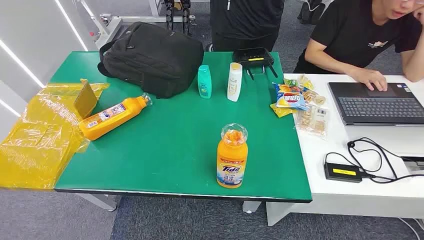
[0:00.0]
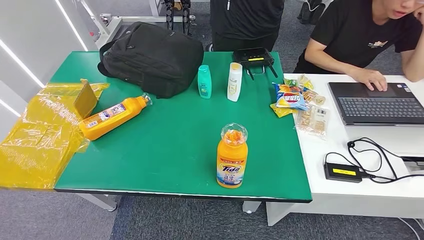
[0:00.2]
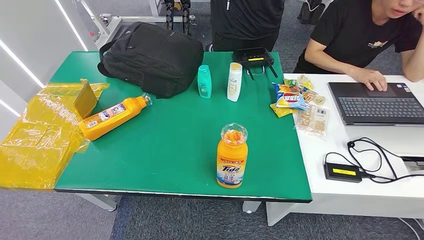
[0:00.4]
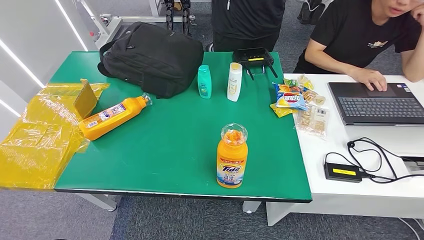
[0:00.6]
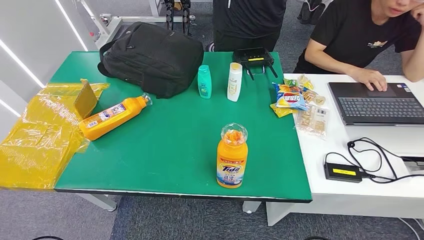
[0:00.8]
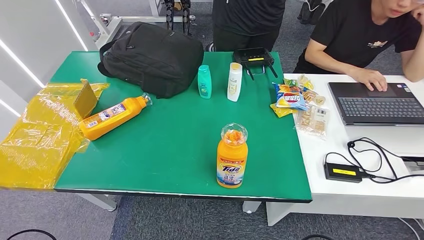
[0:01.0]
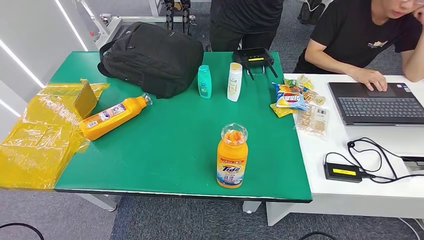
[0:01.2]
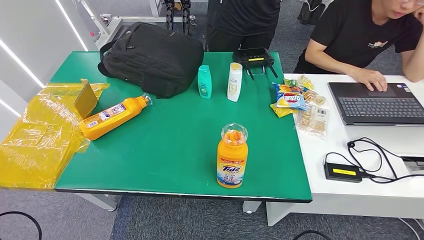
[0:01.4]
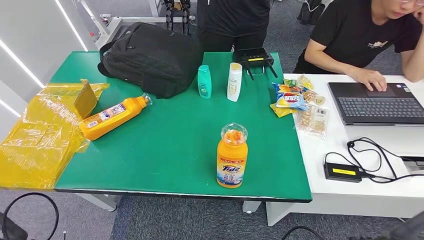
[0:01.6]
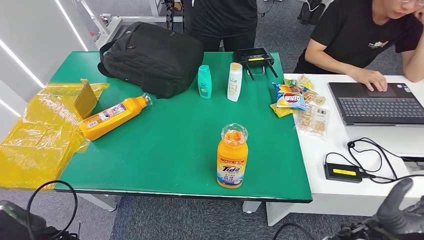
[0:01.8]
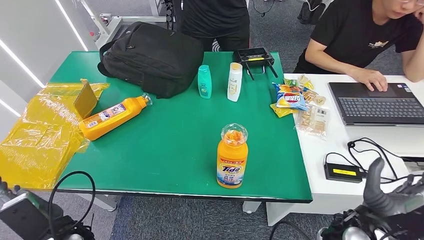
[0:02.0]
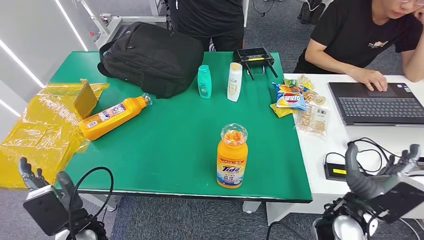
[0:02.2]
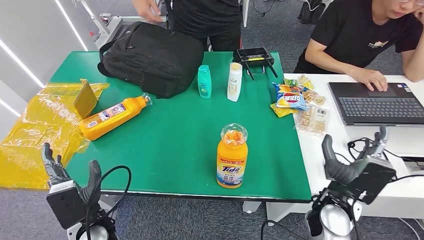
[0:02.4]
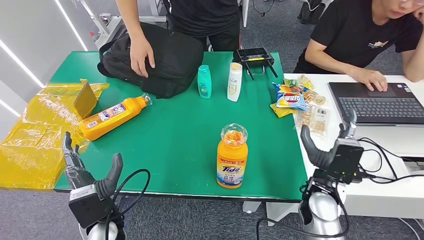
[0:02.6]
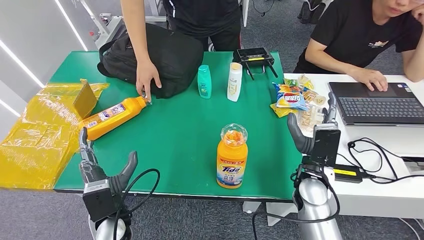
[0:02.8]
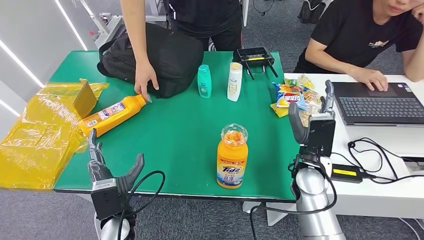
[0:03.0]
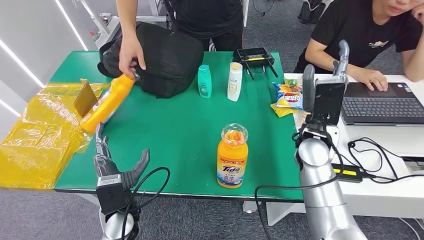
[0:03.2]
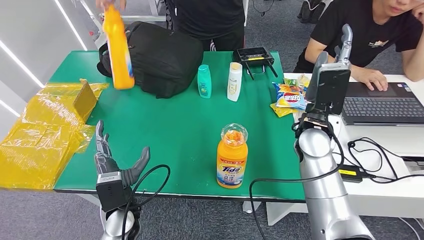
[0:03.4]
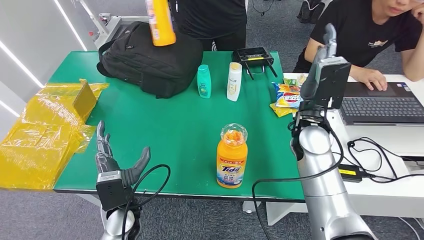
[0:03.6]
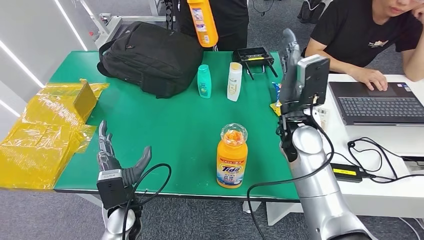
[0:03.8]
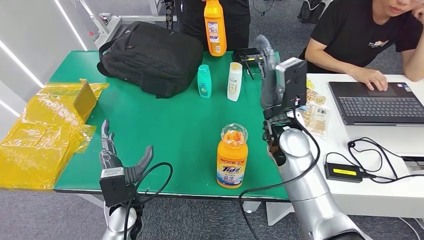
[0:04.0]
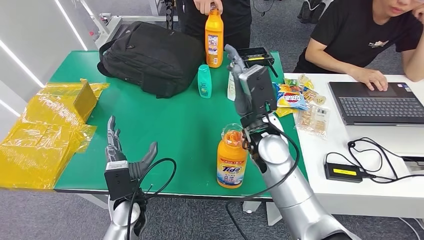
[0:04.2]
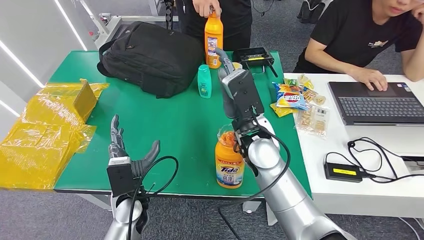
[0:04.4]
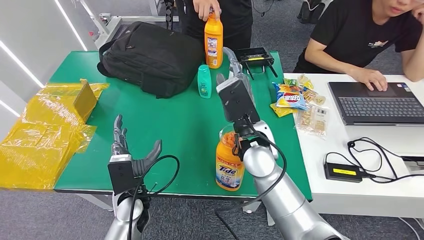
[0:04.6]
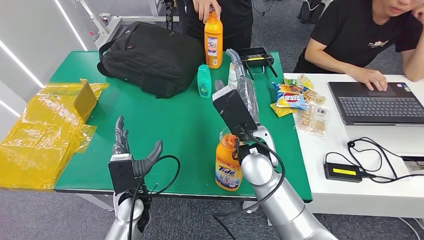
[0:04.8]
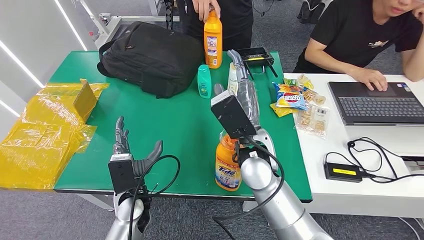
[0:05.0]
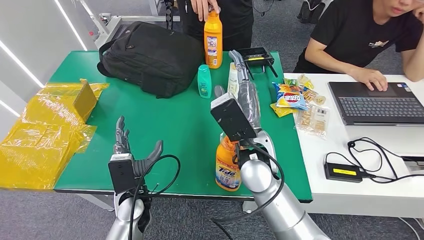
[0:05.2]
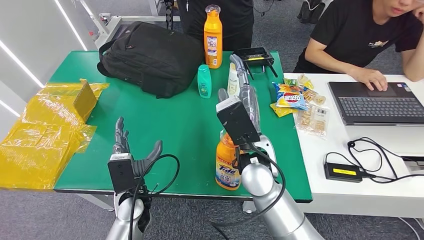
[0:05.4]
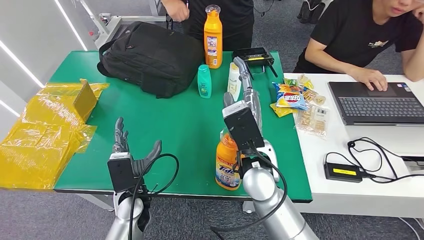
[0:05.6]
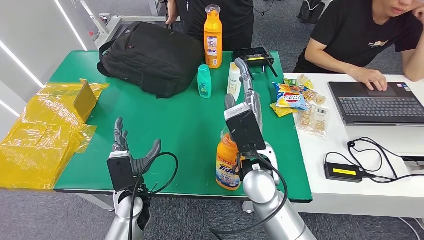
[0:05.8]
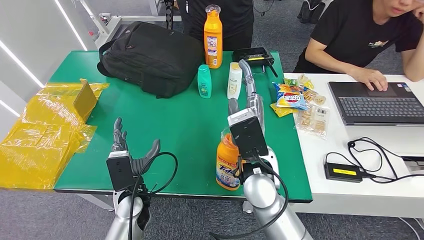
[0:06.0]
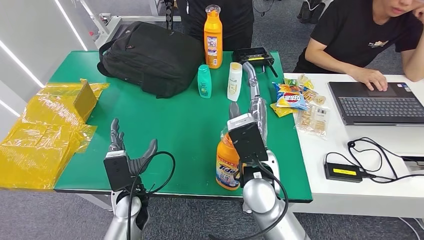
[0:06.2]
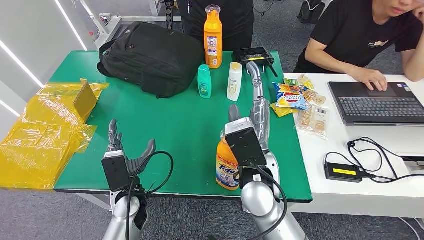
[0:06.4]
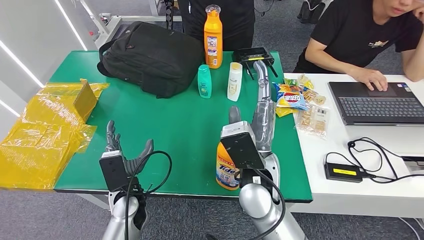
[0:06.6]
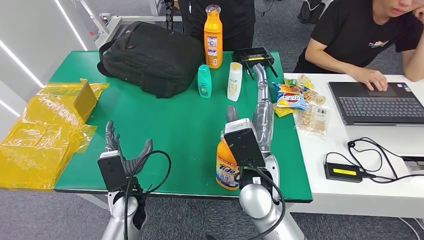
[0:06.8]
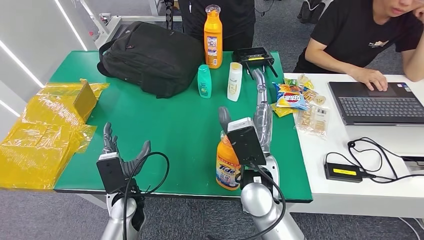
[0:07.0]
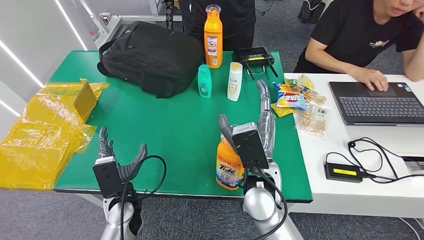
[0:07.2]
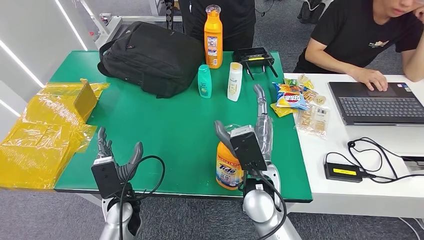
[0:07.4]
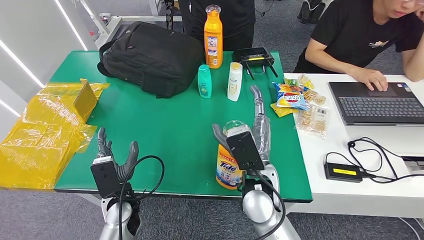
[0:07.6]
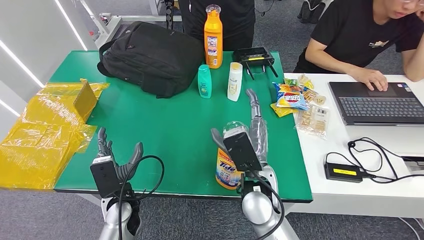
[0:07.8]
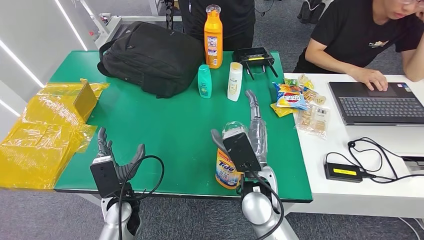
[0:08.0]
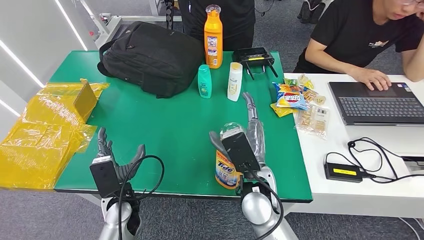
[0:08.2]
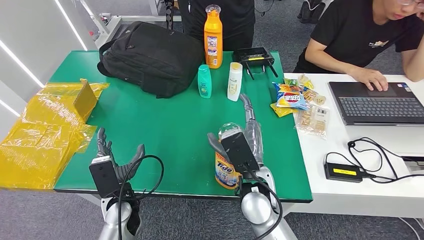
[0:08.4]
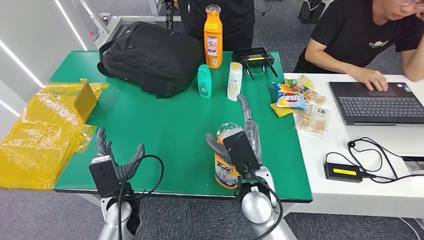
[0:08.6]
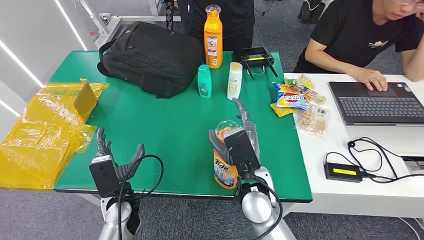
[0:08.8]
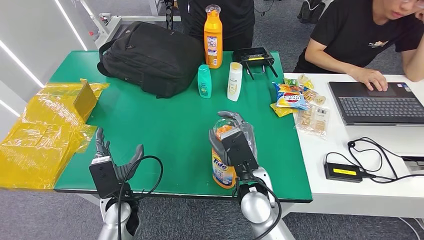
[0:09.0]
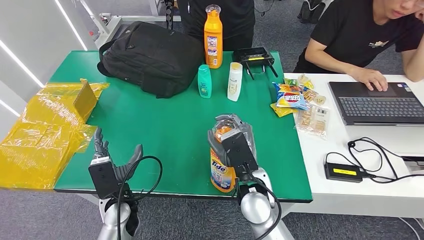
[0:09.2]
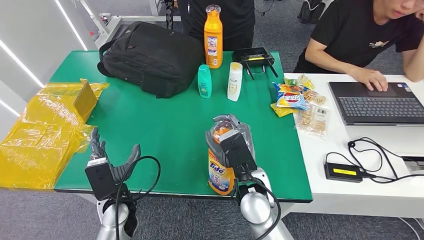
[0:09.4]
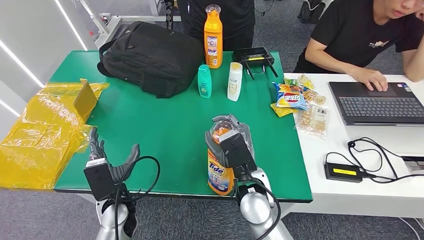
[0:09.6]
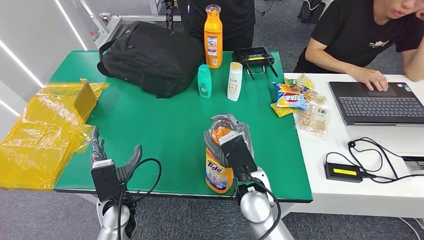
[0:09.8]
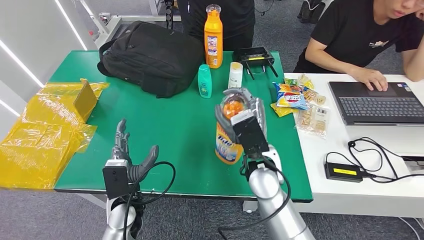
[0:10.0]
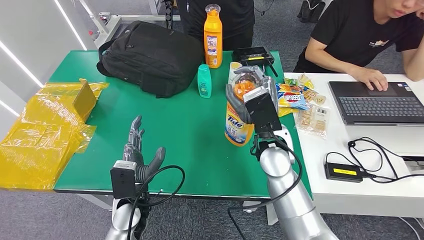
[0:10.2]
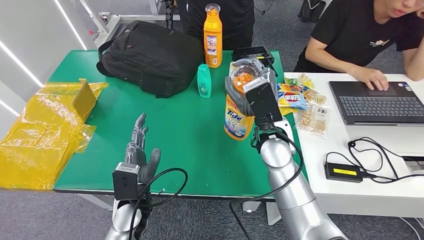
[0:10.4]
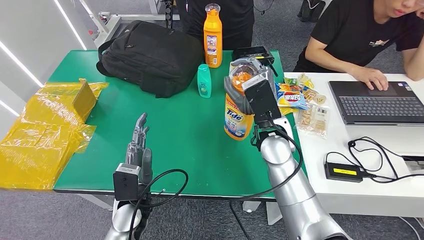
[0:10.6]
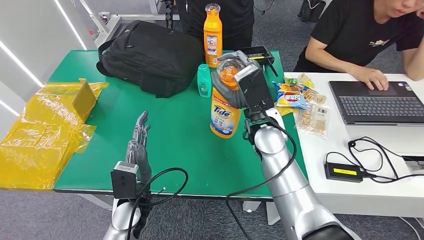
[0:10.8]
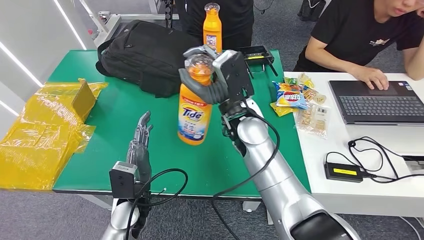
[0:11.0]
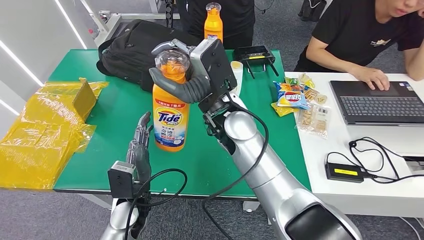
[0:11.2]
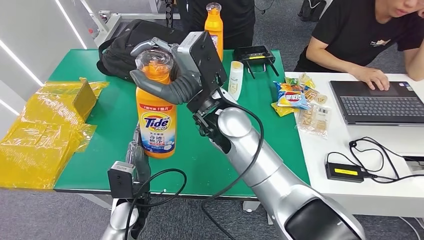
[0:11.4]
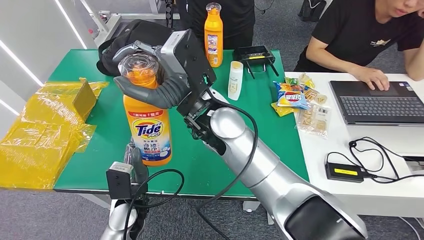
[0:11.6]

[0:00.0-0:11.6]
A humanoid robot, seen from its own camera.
Step, 0:00.0 to 0:11.6: Pick up the bottle from the table.
0:01.4 to 0:02.8: The right hand is displaced forward and to the left by about 20 cm, while the left hand goes roughly 20 cm to the right and forward.
0:04.4 to 0:05.8: The right hand heads backward, covering about 5 cm.
0:05.8 to 0:07.2: The hands stay close to where they were, moving slightly.
0:07.2 to 0:08.8: The hands move only a little.
0:08.8 to 0:10.2: The right hand moves forward and upward, approximately 10 cm.
